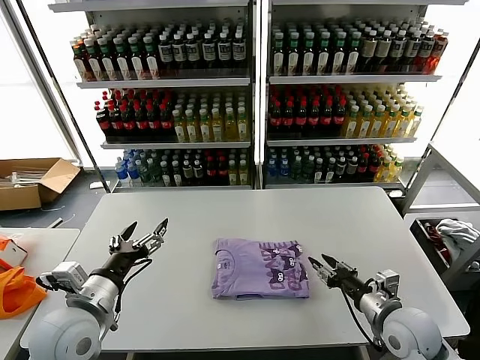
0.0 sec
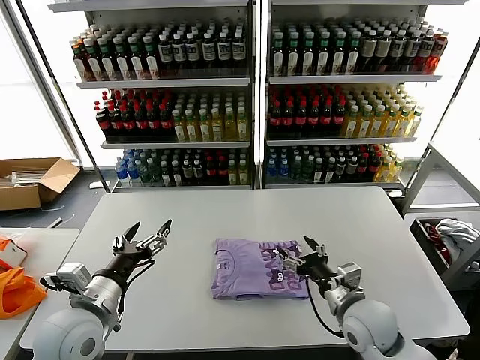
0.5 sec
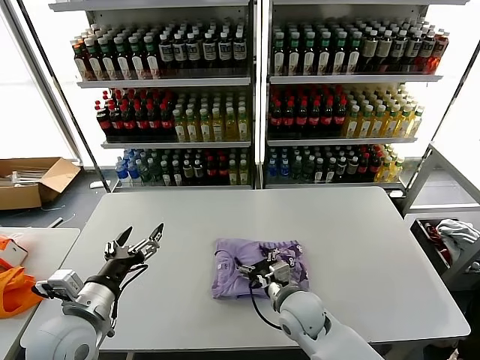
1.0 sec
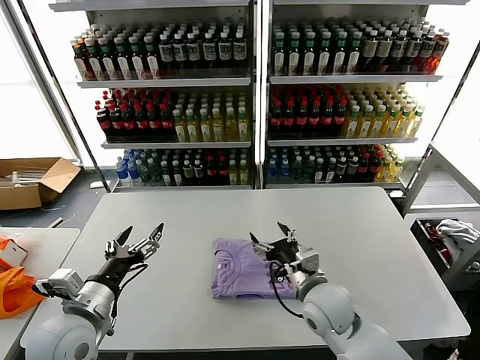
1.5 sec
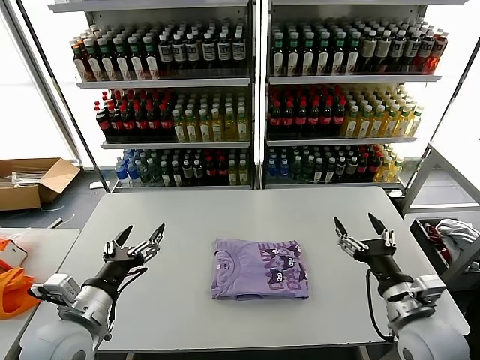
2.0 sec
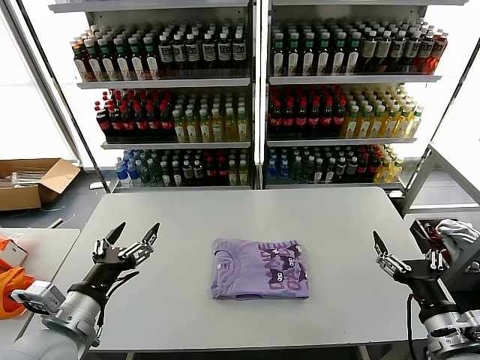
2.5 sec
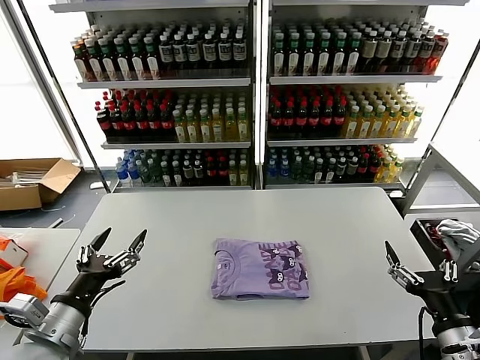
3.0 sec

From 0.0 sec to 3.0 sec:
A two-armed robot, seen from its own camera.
Task of the whole recording: fold and organize the clothes.
From 0.0 sec to 1.5 sec: The right gripper shifts about 15 cm to the left, and opens.
From 1.5 sec to 3.0 sec: The left gripper ends up some 5 cm from where it was, while the right gripper is displaced to the right and backward by approximately 25 cm.
